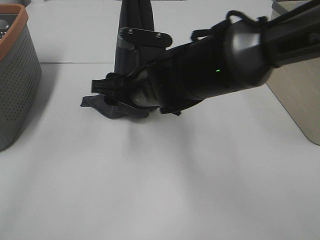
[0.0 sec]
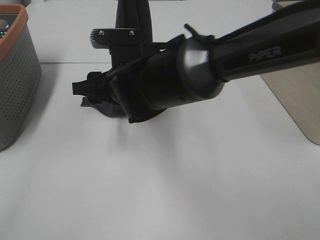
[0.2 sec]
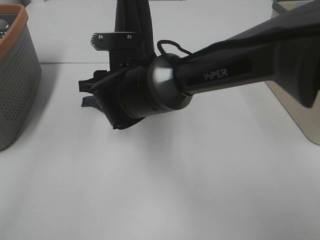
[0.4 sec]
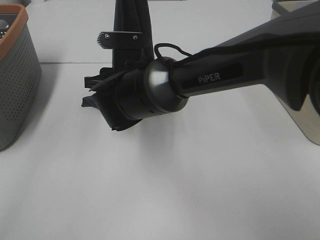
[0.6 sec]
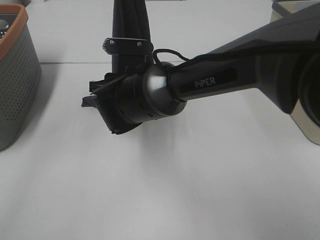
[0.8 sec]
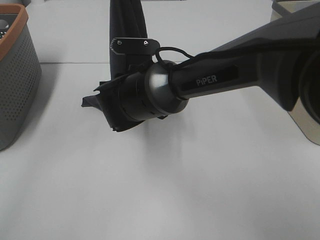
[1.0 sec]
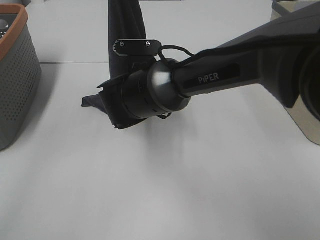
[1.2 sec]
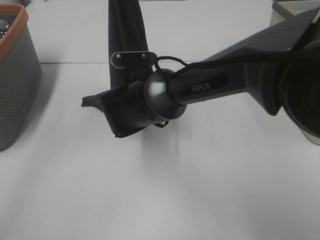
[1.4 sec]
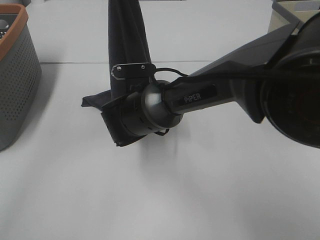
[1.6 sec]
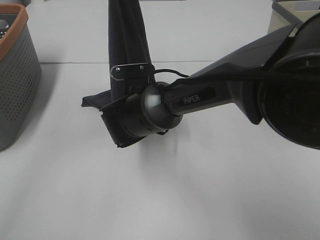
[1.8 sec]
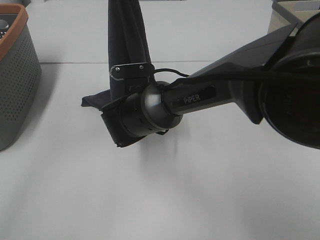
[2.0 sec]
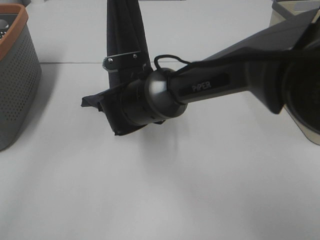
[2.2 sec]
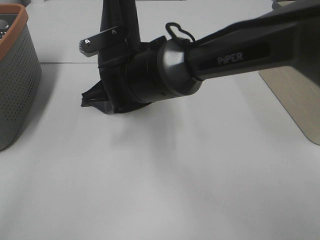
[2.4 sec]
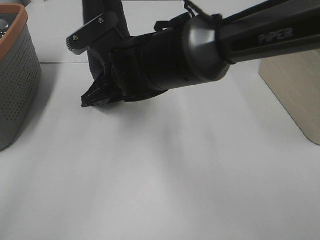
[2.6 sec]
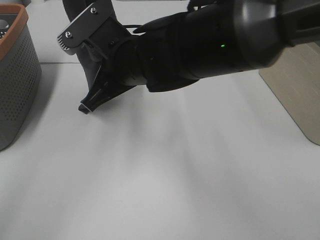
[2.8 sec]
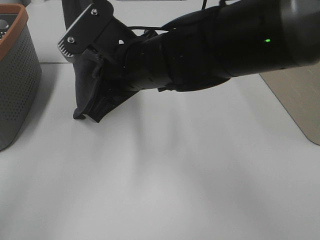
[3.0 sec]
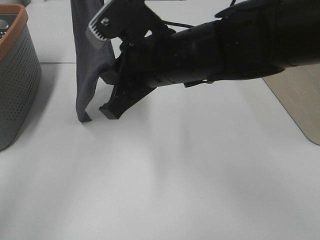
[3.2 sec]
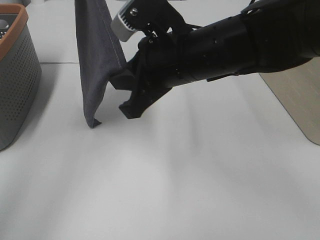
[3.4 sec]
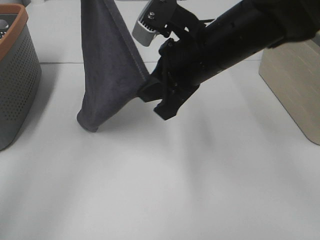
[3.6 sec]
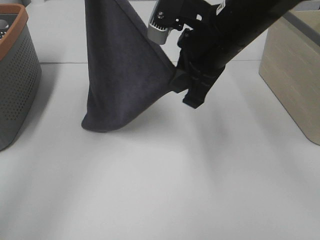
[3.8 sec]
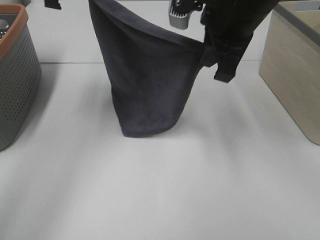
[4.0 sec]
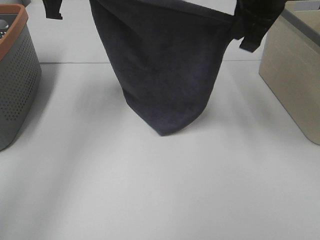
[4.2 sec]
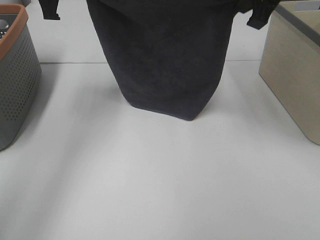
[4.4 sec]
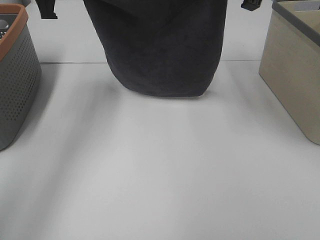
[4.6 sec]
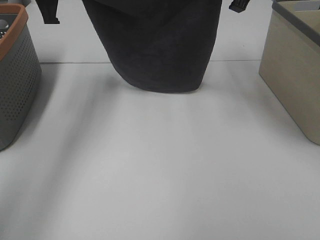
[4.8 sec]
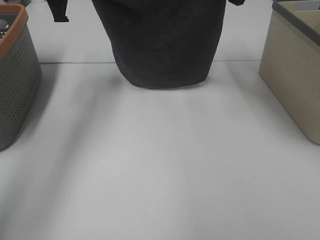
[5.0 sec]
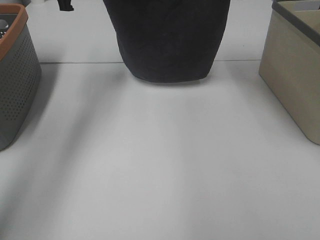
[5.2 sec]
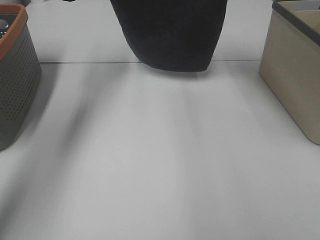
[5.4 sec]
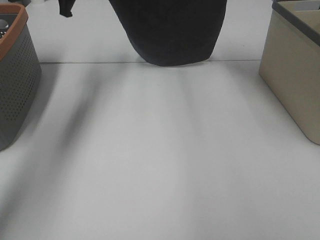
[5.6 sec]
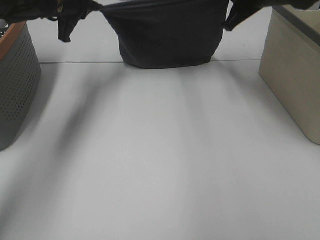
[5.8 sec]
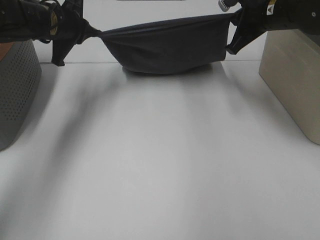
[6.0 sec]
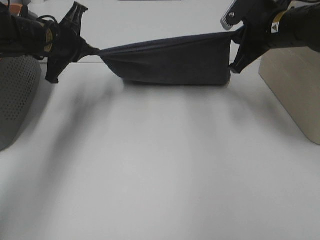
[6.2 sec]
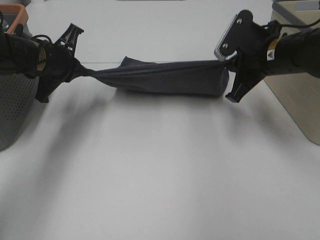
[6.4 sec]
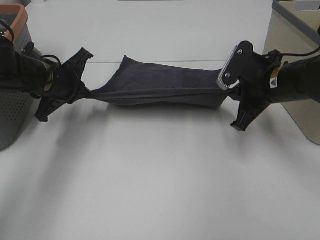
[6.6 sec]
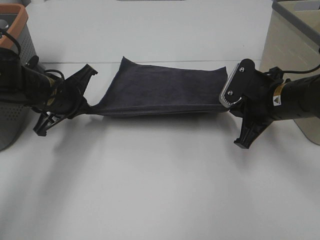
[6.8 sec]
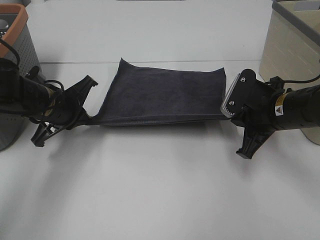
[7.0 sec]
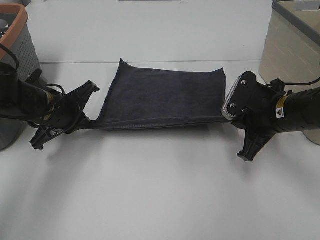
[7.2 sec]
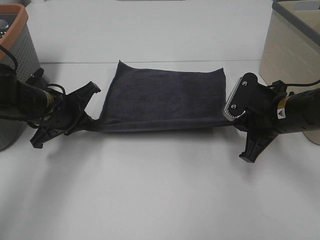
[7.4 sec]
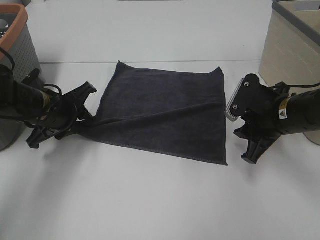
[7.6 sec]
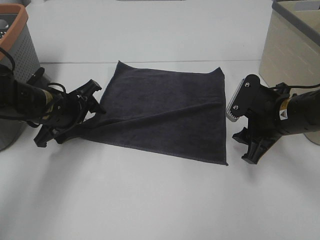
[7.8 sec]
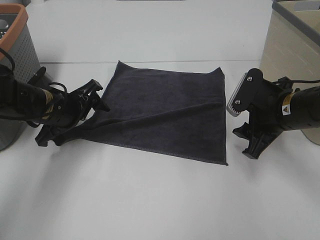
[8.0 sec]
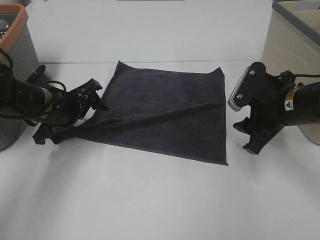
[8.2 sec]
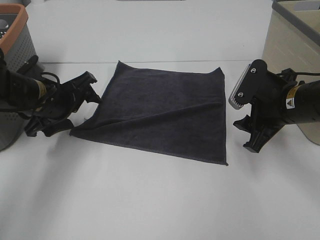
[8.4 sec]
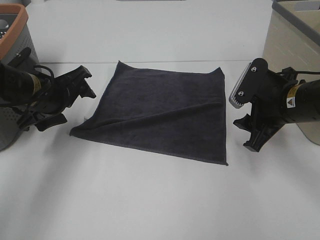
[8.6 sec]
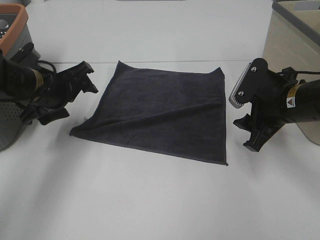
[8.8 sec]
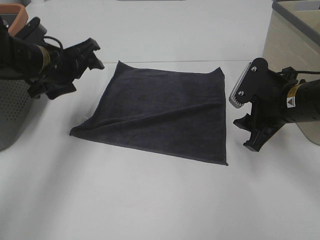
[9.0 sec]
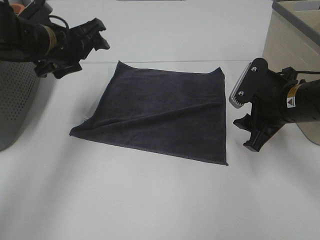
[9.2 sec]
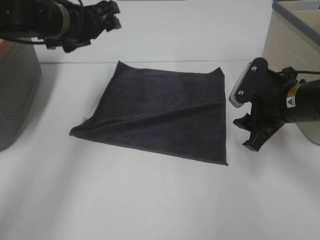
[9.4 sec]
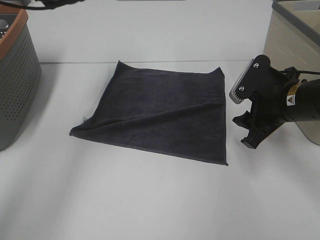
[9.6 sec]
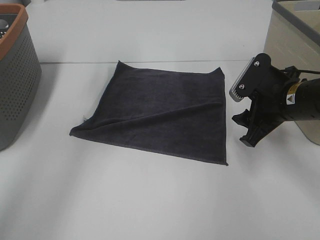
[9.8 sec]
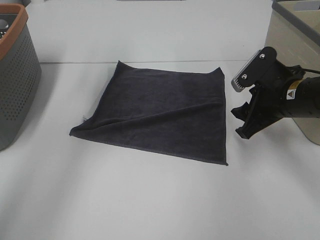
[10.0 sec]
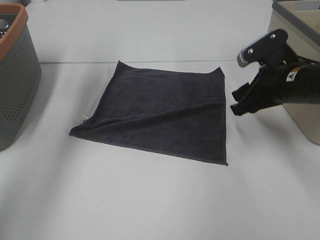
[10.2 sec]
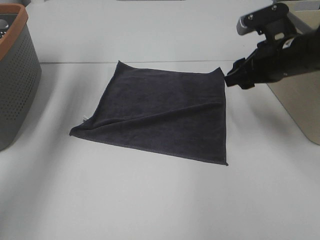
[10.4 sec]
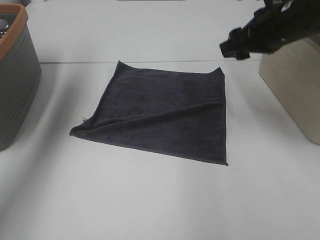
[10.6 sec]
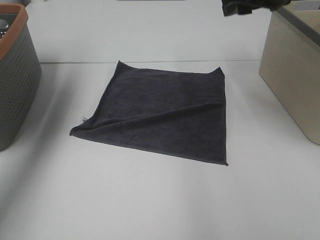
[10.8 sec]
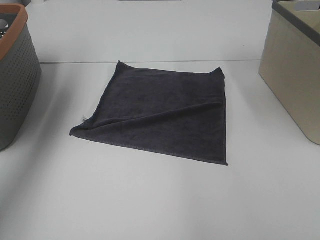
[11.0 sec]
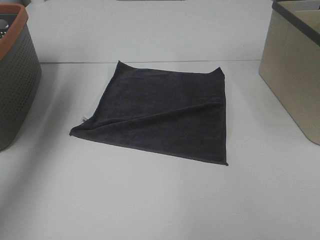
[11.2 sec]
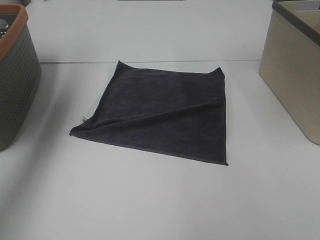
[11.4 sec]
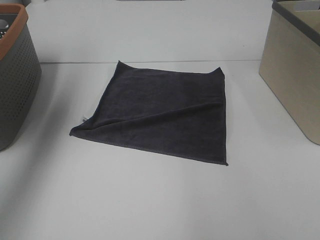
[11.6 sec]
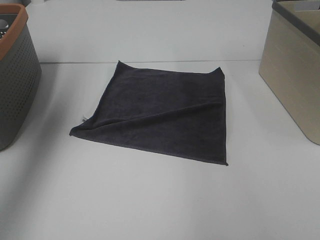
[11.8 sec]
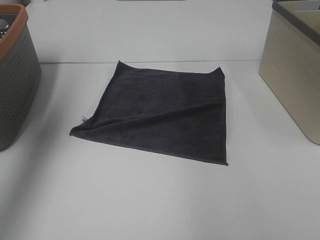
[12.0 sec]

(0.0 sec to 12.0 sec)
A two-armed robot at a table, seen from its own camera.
Task of the whole recording: Remove the towel and place it.
Step, 1.0 sec - 3.4 sec: Right hand: spread the grey towel flat on the table.
Step, 1.0 sec - 3.8 sec: Left hand: spread the grey towel flat on the table.
0.0 sec - 1.6 sec: The right gripper is displaced downward by roughly 10 cm.
1.6 sec - 3.0 sec: The right gripper travels upward and backward by approximately 15 cm, and closes. The left gripper is displaced to the left by some 10 cm.
3.0 sec - 4.4 sec: The left gripper is displaced downward by about 10 cm. The right gripper travels to the right, upward and forward by about 25 cm.
4.4 sec - 6.0 sec: The left gripper is displaced downward by approximately 10 cm. Meanwhile the right gripper is displaced downward and forward by approximately 10 cm.
6.0 sec - 7.6 sec: The two grippers go roughly 15 cm backward and downward. The left gripper opens up. Meanwhile the right gripper opens.
7.6 sec - 9.0 sec: The left gripper moves upward, roughly 5 cm, and opens its fingers.
9.0 sec - 10.4 sec: The left gripper shifts about 20 cm upward, forward and to the left. Meanwhile the right gripper goes roughly 5 cm upward and forward.
10.4 sec - 12.0 sec: The left gripper travels backward and upward by approximately 20 cm. The right gripper travels upward by about 25 cm.

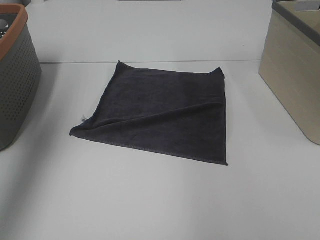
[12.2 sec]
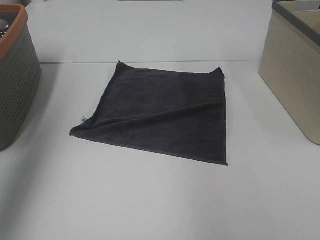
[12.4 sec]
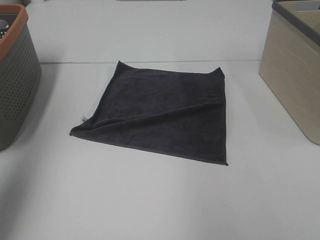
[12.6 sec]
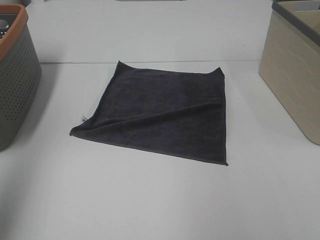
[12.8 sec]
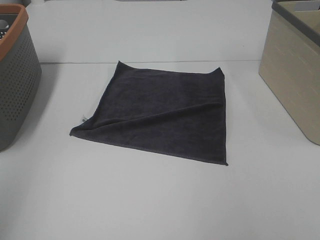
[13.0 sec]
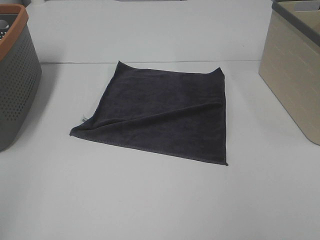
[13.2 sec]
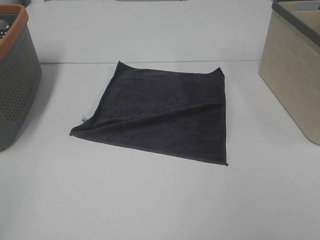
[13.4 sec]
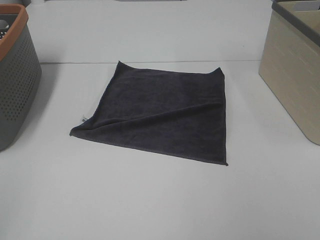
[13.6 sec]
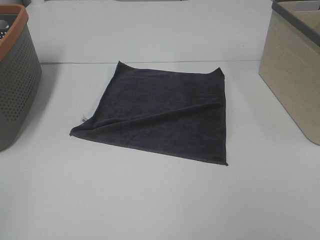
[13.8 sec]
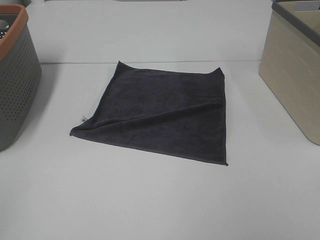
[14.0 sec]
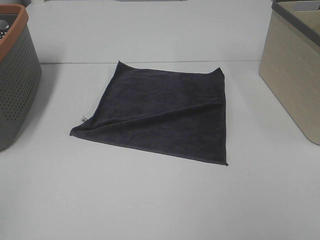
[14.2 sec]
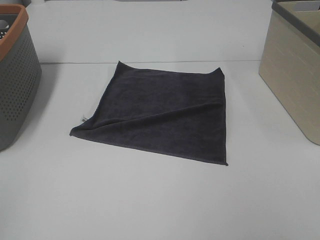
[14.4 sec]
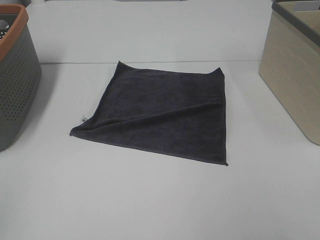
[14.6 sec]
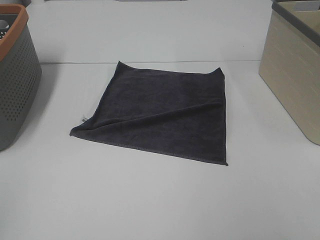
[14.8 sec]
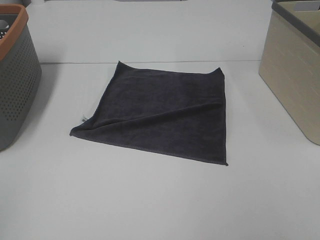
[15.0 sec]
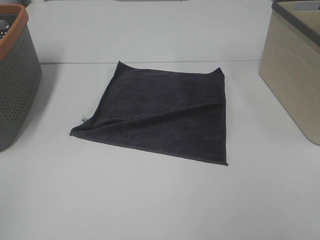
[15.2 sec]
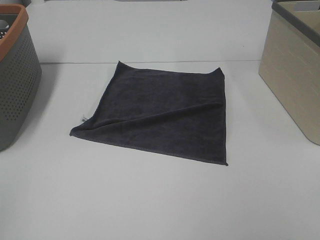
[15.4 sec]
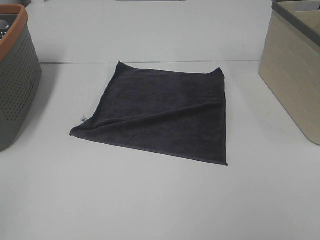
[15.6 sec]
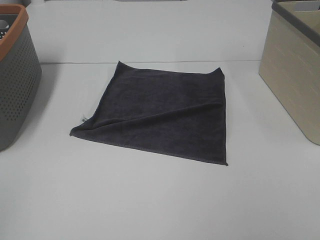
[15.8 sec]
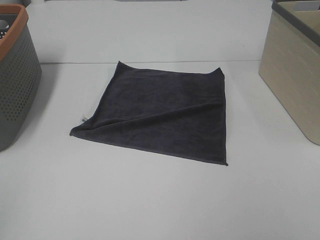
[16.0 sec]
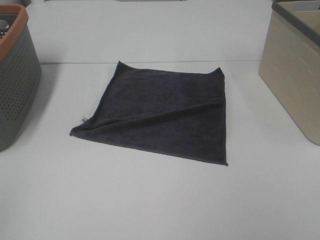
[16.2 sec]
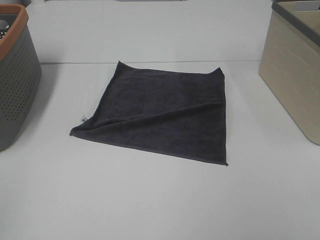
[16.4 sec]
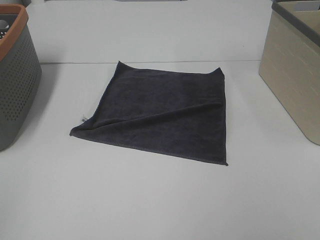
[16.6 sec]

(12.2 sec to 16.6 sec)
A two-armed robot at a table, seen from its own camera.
Task of the whole recording: Remove the towel and place it.
12.2 sec - 13.6 sec: The left gripper moves backward and downward, about 30 cm.
15.2 sec - 16.6 sec: Both grippers stay put.
